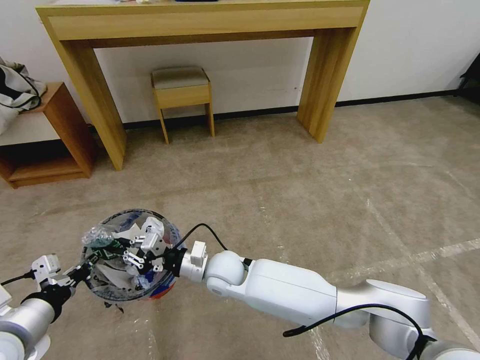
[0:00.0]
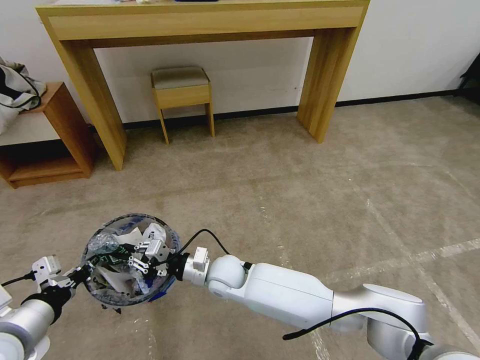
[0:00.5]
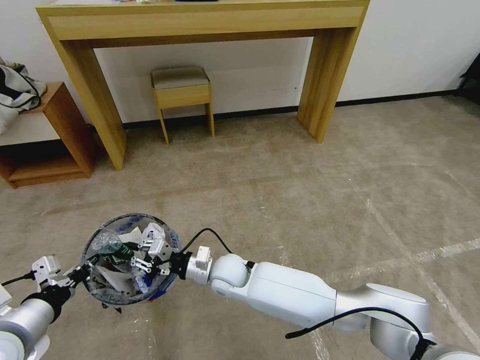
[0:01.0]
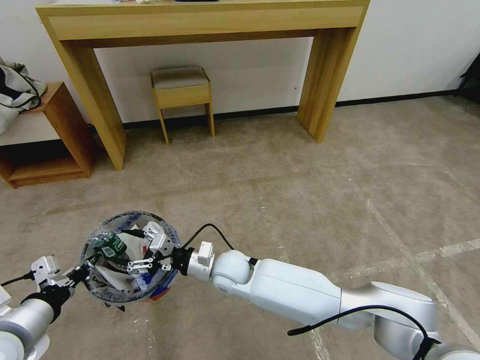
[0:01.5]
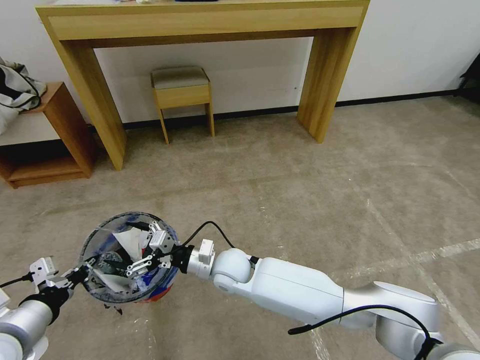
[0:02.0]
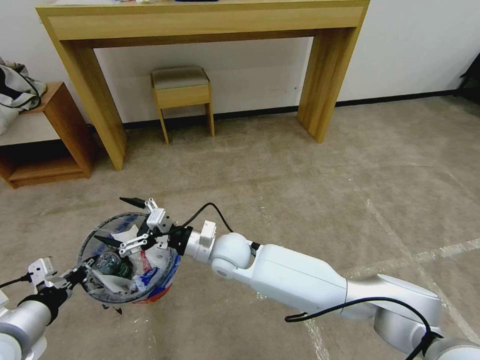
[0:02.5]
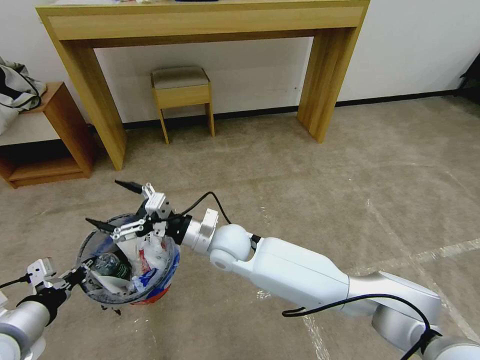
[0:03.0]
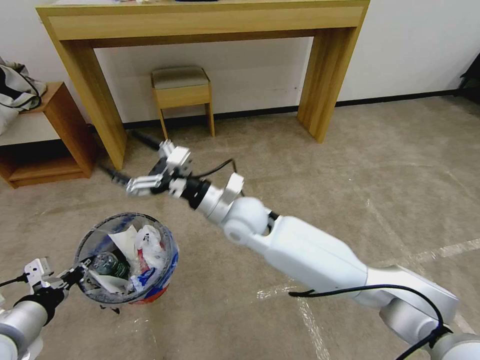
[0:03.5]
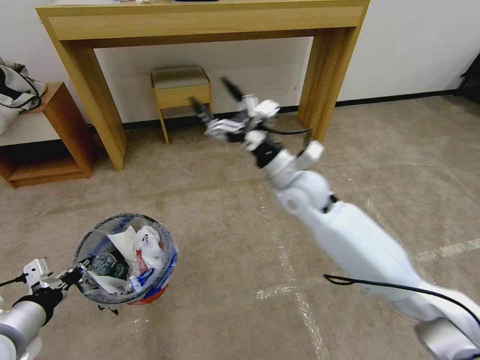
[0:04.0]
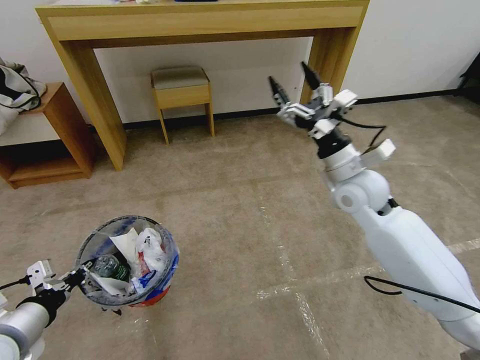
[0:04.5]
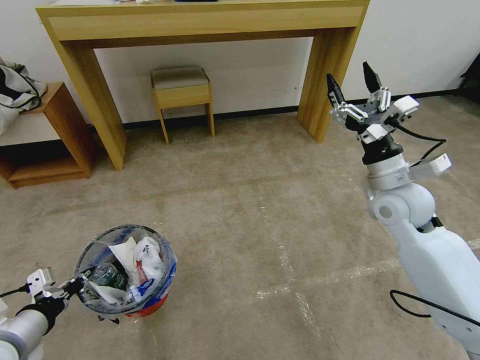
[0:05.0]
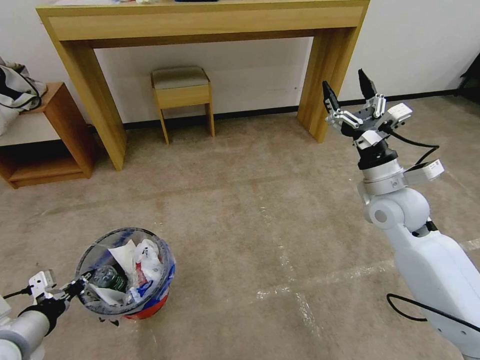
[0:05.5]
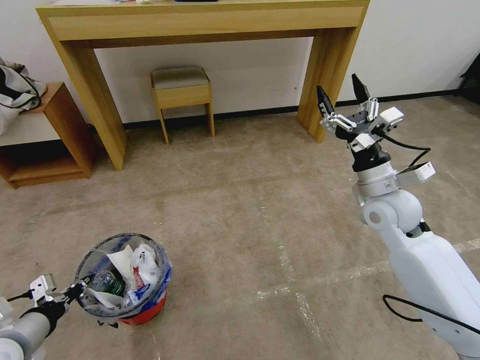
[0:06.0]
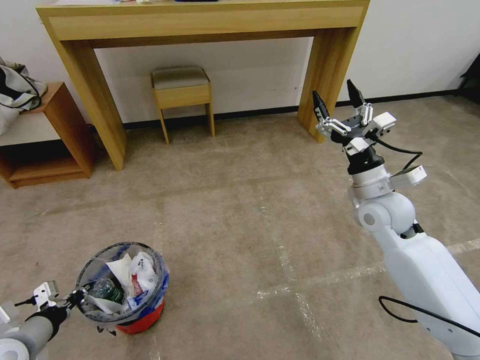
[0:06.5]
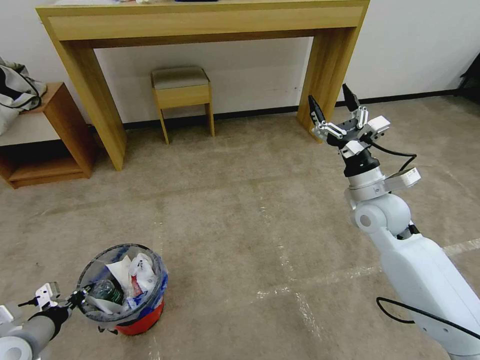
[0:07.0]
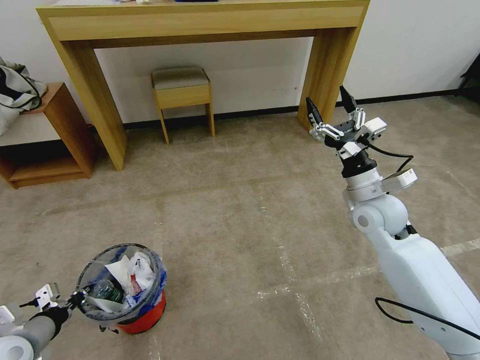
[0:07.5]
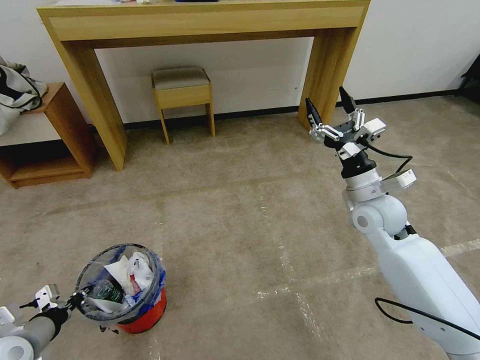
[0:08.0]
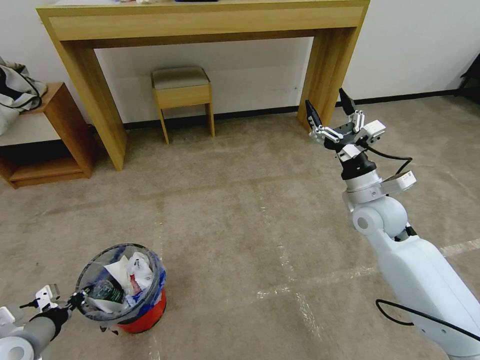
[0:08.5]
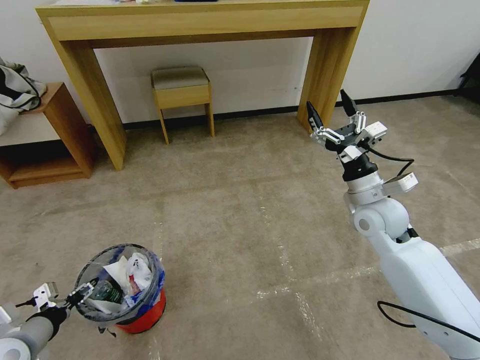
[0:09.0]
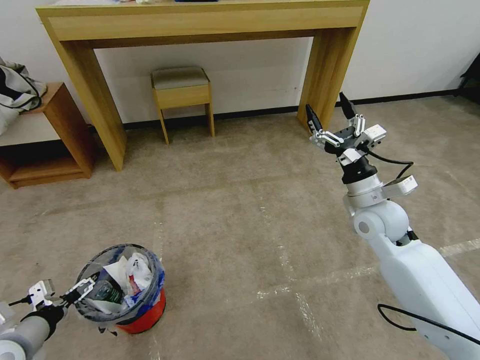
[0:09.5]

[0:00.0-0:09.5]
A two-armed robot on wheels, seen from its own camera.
Task of the whole recording: Pick up the trash bin and place the garbage on the floor into it.
0:00.0 to 0:02.0: The right gripper opens up.
0:02.0 to 0:04.0: The right gripper shifts roughly 25 cm upward, to the right and forward.
0:04.0 to 0:05.5: The right gripper goes some 20 cm to the right.
0:05.5 to 0:07.5: The left gripper moves downward, approximately 5 cm.
0:07.5 to 0:09.5: The left gripper opens up.

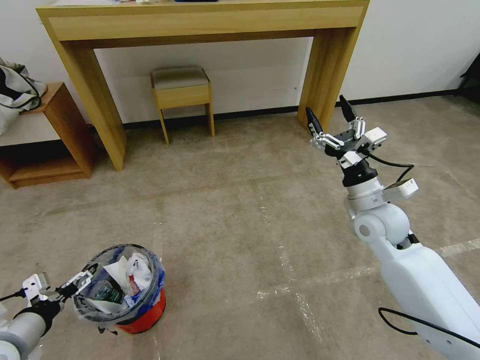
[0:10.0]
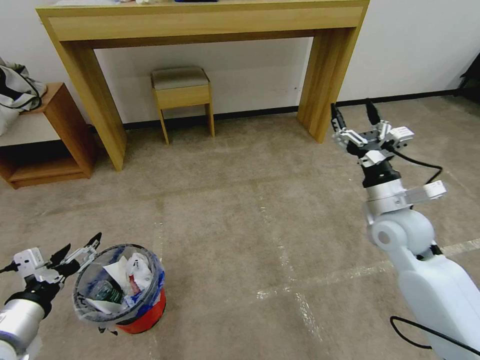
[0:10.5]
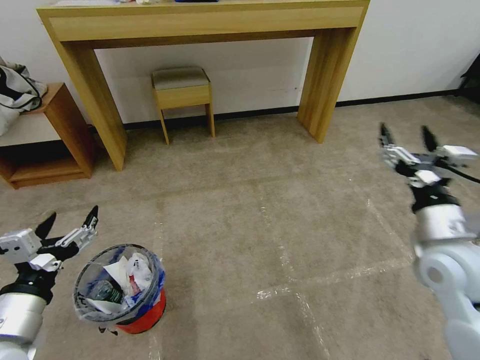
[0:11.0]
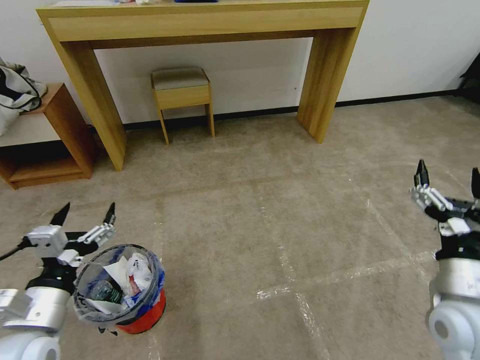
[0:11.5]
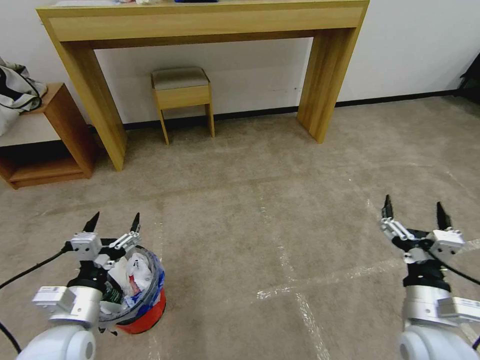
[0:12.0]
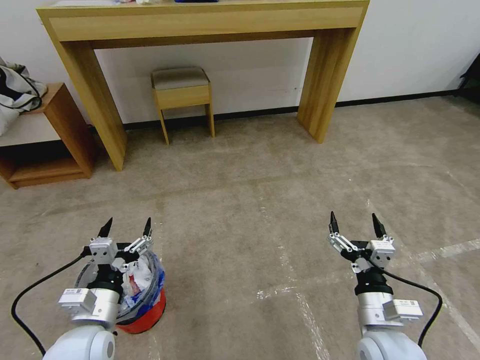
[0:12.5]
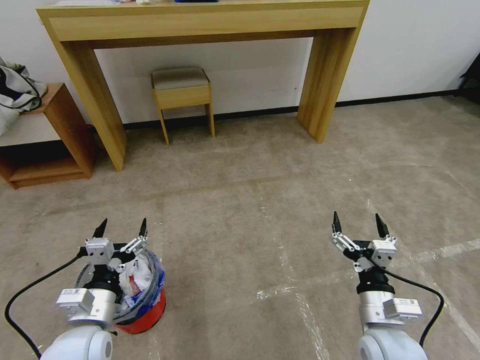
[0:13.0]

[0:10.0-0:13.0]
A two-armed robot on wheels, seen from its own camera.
Task of the whole recording: Pick up the trash bin and place the garbage on the floor into it.
0:10.0 to 0:11.5: The right gripper goes about 20 cm backward; the left gripper is displaced to the right and upward by approximately 10 cm.
0:11.5 to 0:13.0: The left gripper is displaced downward by about 5 cm. Meanwhile the right gripper travels downward and to the left by about 15 cm.
